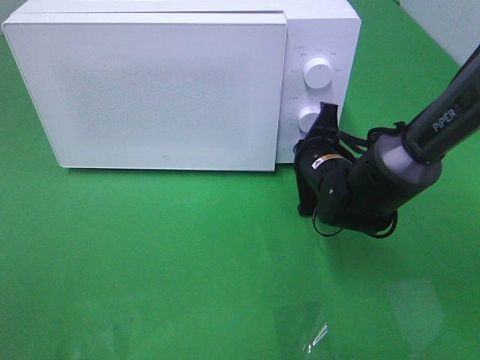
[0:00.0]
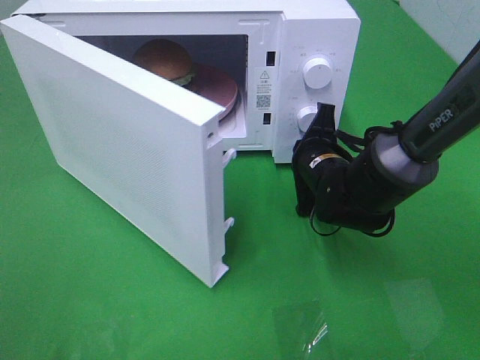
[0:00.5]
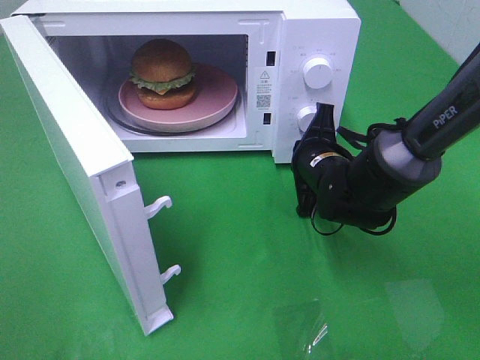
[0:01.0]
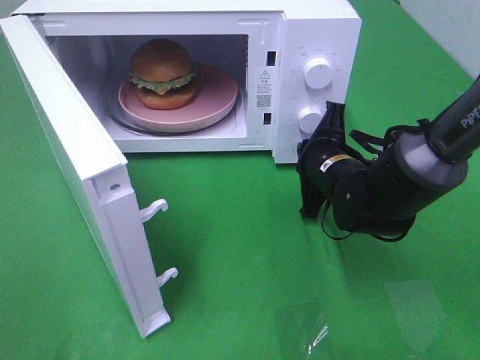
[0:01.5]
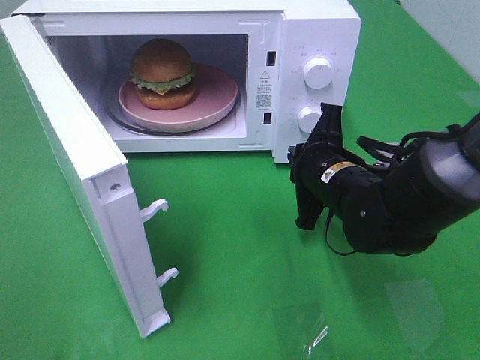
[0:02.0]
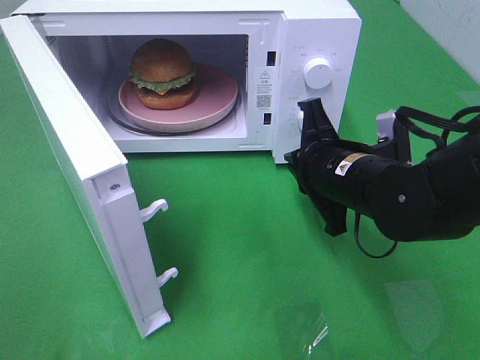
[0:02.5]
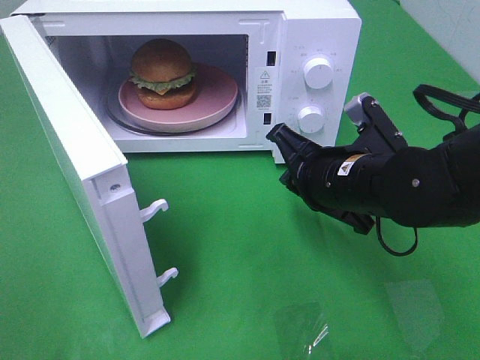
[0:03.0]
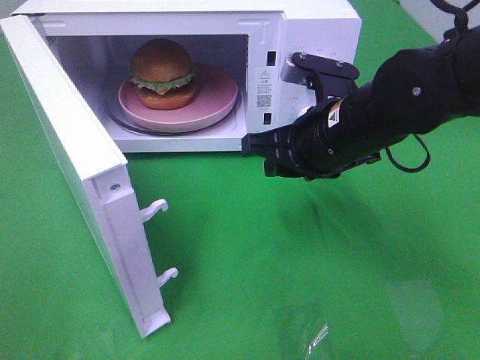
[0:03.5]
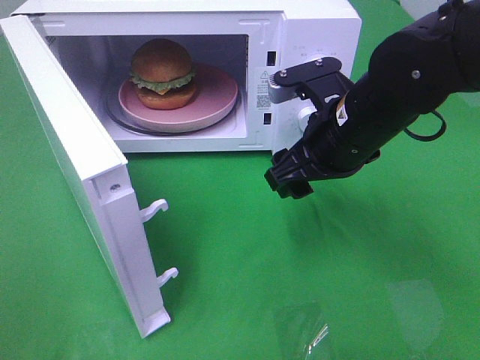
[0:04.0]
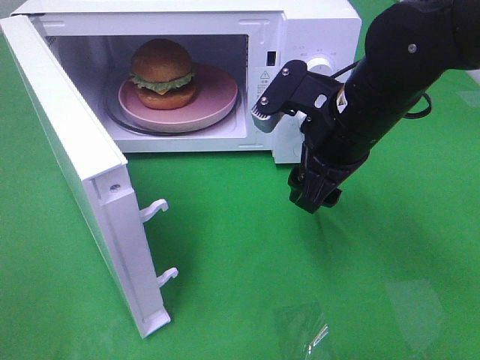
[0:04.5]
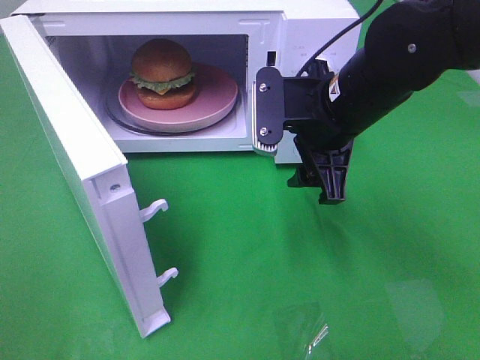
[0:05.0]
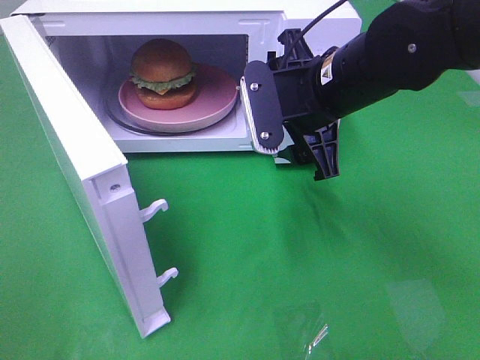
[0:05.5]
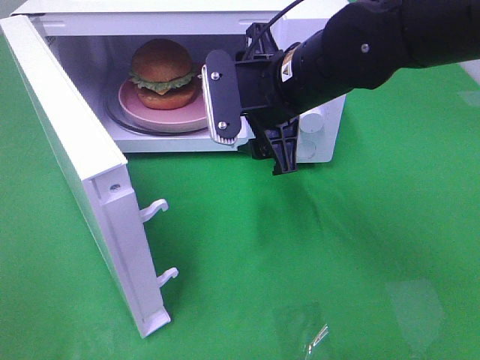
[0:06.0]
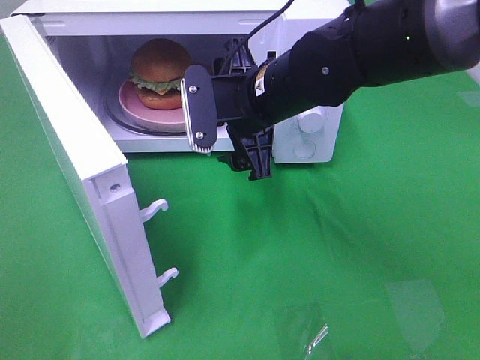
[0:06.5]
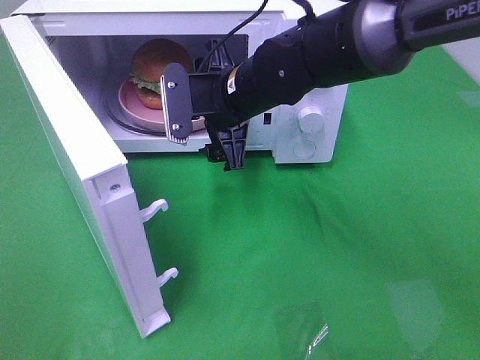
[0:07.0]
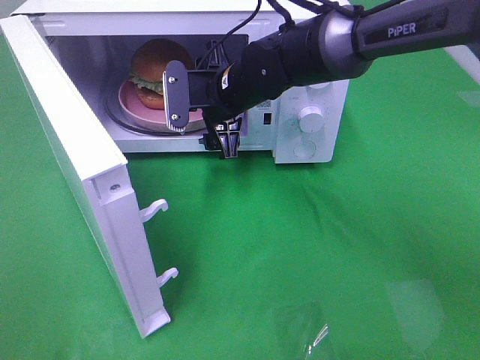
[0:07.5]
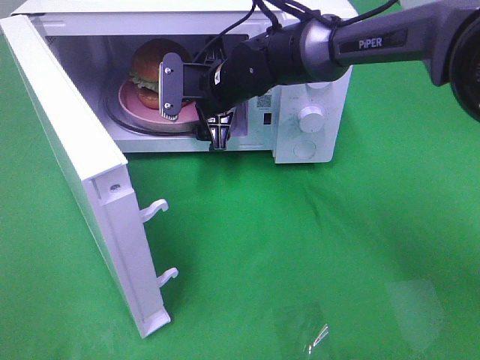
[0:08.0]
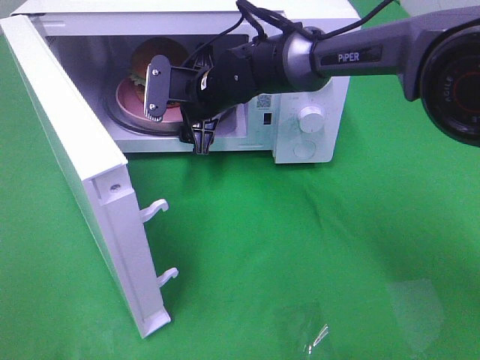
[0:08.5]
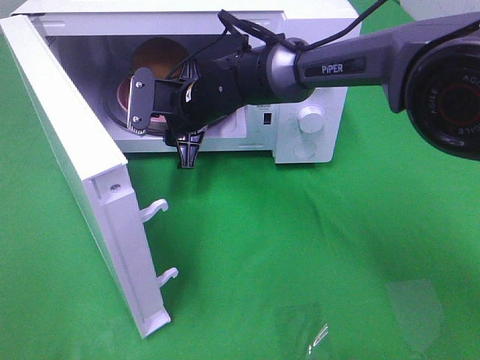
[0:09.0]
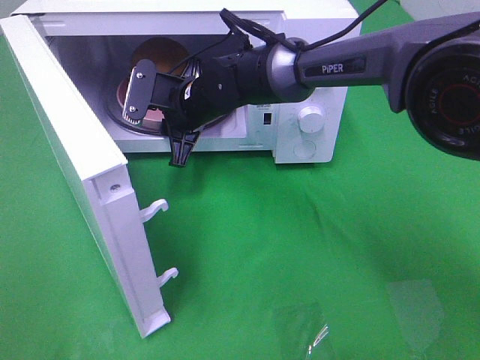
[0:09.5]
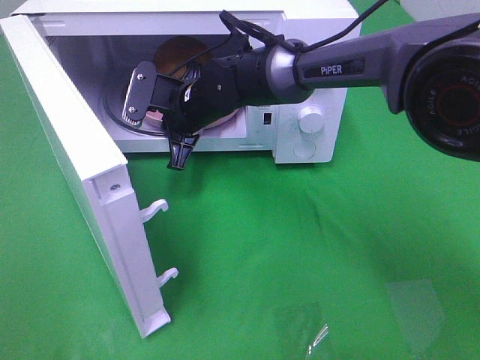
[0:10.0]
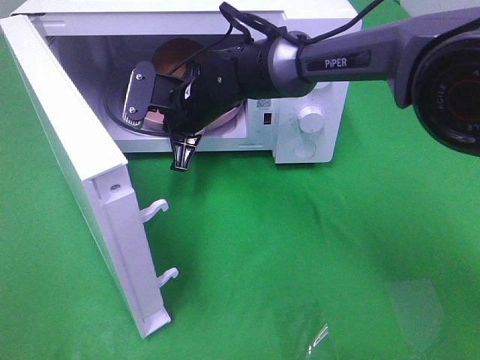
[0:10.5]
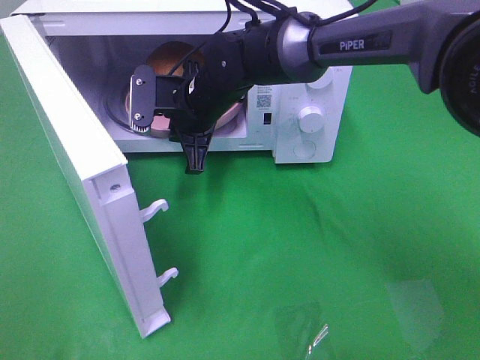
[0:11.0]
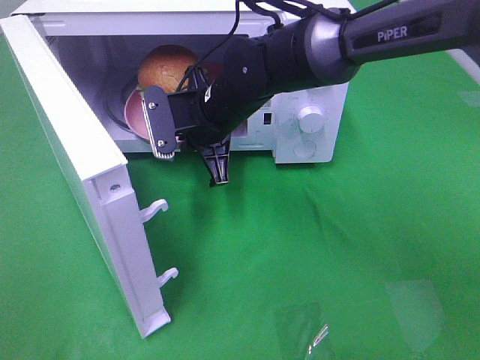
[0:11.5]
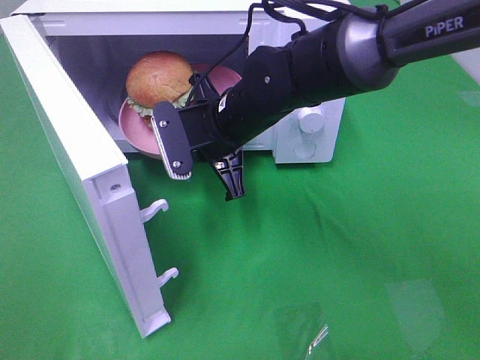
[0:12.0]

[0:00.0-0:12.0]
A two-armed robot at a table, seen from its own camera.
Task of the whole recording: Heat the burger.
Step, 0:02.0 to 0:09.5: Right hand: grab the plate with the hamburger.
0:00.0 to 0:02.0: The right gripper is displaced backward by approximately 5 cm.
0:02.0 to 0:04.0: The right gripper shifts about 10 cm upward, and opens.
0:04.0 to 0:06.0: The right gripper moves to the left, approximately 5 cm.
0:06.0 to 0:08.0: The right gripper is displaced forward, downward and to the left by roughly 15 cm.
0:08.0 to 0:10.0: The right gripper closes.
0:10.0 to 0:12.0: The right gripper goes some 5 cm backward.

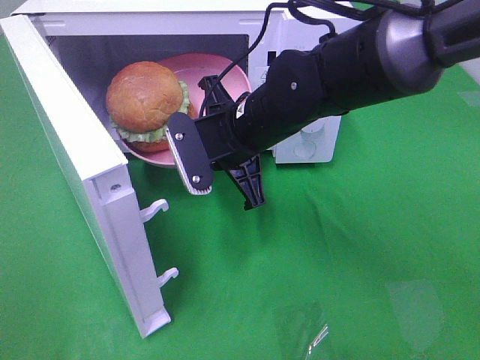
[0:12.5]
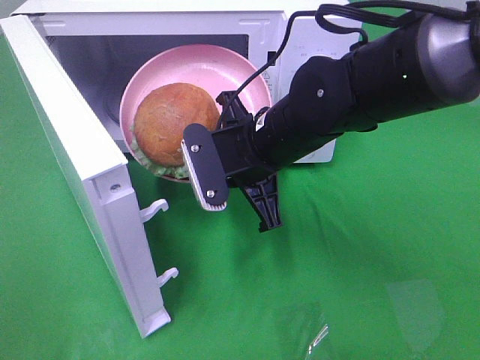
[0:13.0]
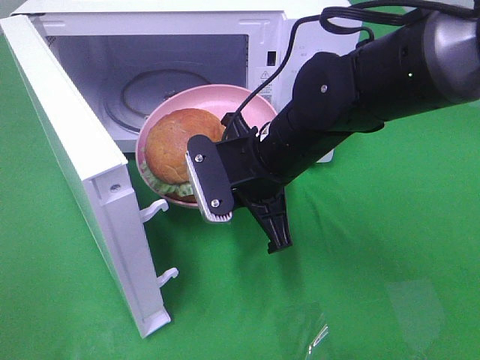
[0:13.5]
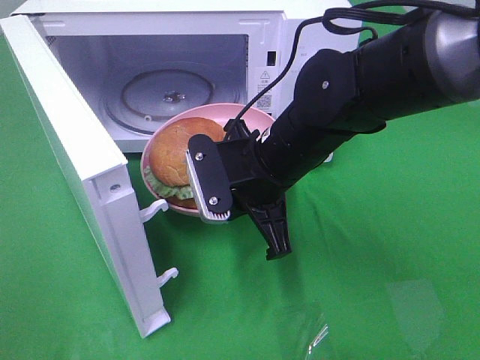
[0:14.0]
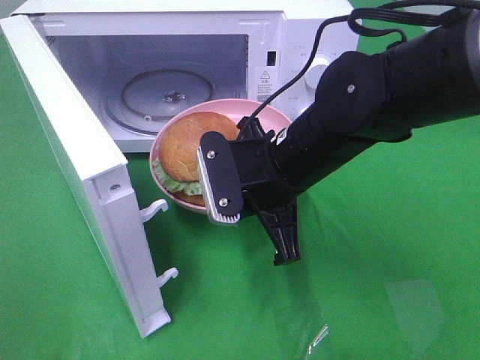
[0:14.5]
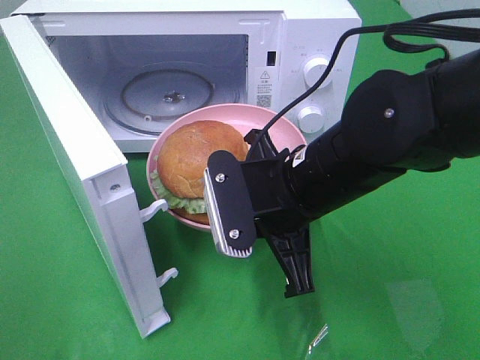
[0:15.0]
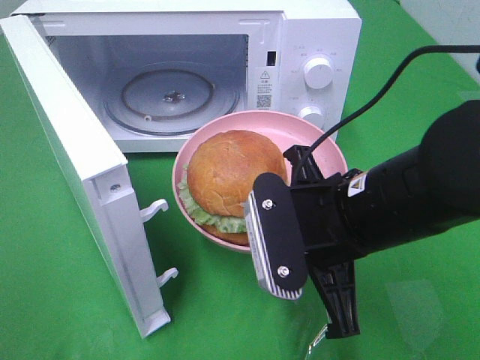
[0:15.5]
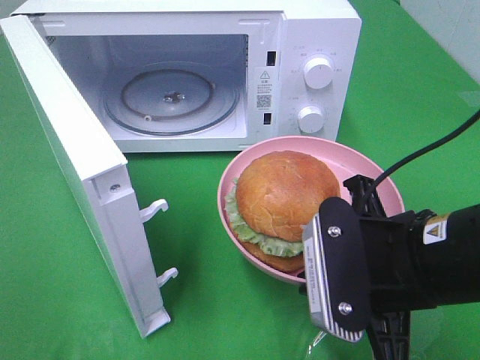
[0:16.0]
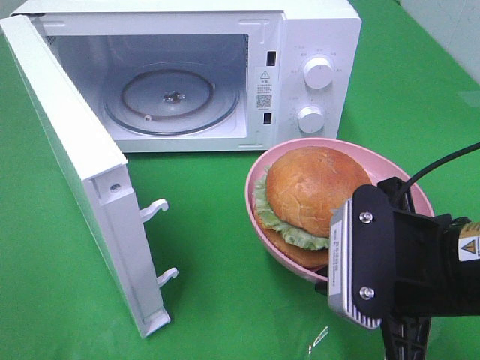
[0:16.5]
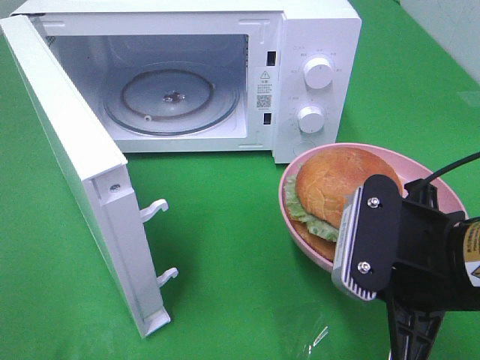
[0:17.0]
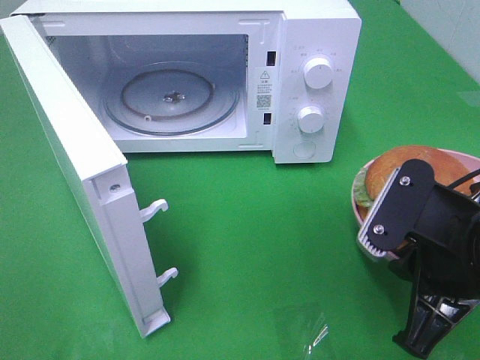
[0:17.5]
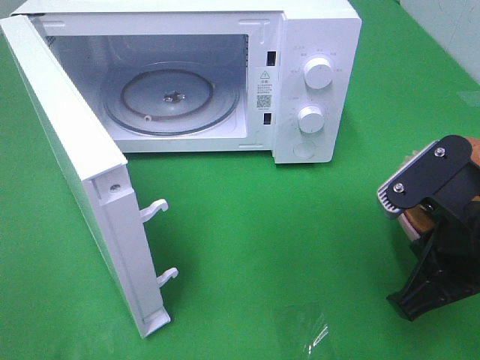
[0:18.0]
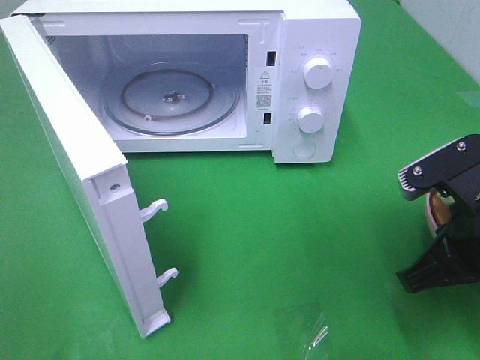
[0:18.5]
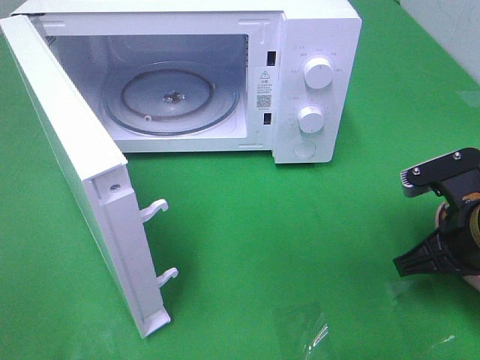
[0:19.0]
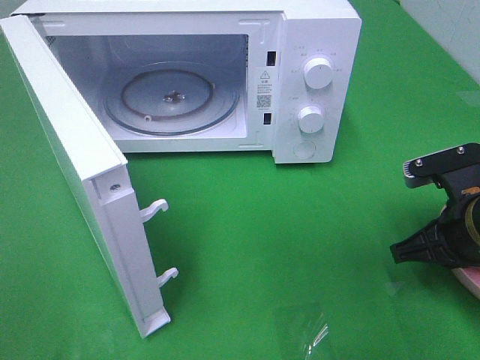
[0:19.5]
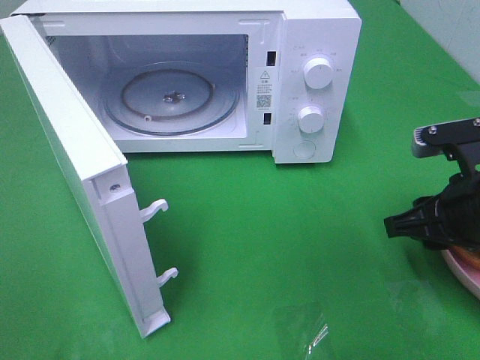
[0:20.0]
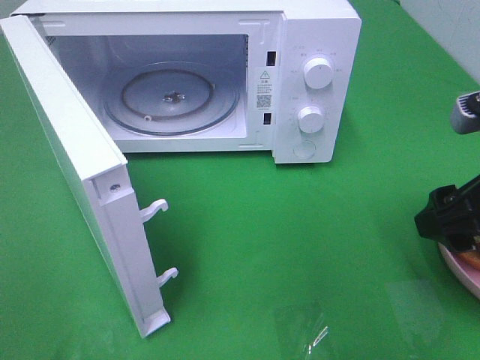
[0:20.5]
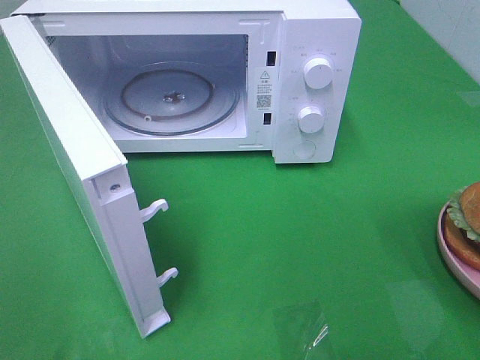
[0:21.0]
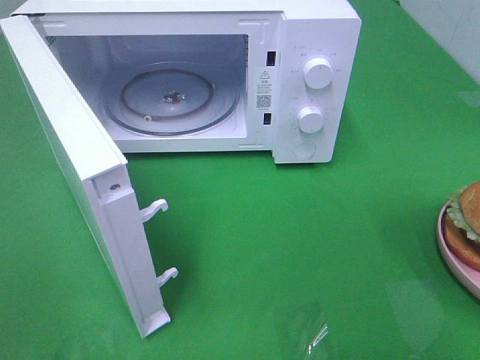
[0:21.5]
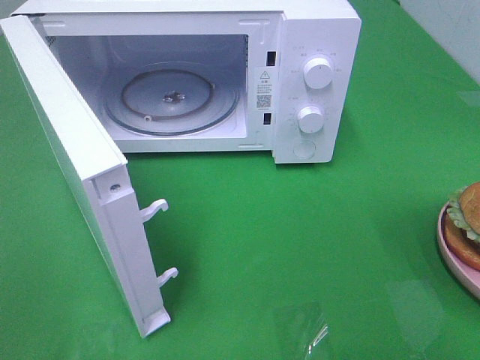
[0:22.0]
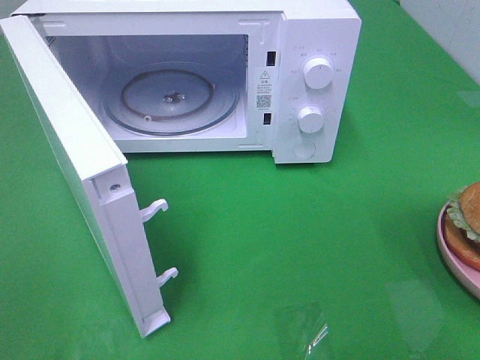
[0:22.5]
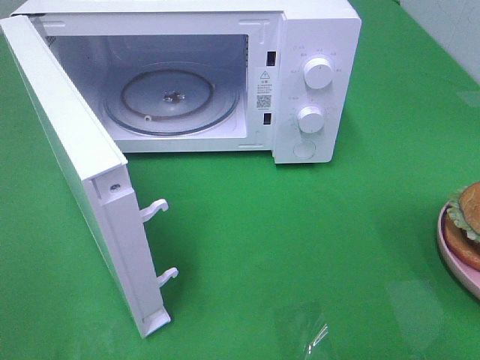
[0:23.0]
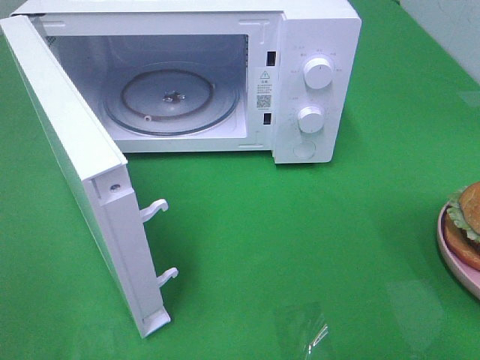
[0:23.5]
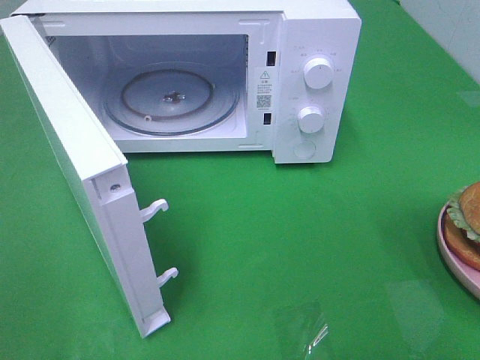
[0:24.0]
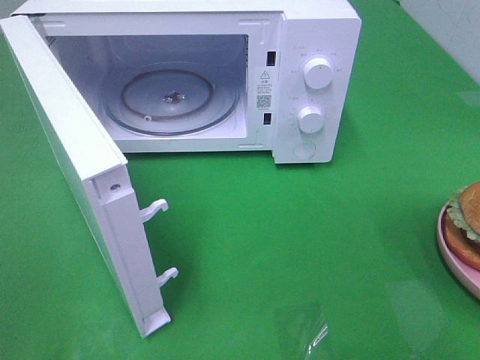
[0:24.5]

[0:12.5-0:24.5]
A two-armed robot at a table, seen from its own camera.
Task of the whole recording: Heat the burger.
Step, 0:12.5 to 0:20.0: Right hand: place the plate on the table.
0:12.5 to 0:14.5: The right gripper goes approximately 5 cm backward.
0:14.5 to 0:16.5: The right gripper shifts approximately 15 cm backward and to the right.
0:16.5 to 0:18.5: The right gripper heads to the right, covering about 5 cm.
0:18.5 to 0:20.5: The right gripper goes some 5 cm upward, and opens.
0:20.5 to 0:22.5: The right gripper shifts approximately 20 cm backward.

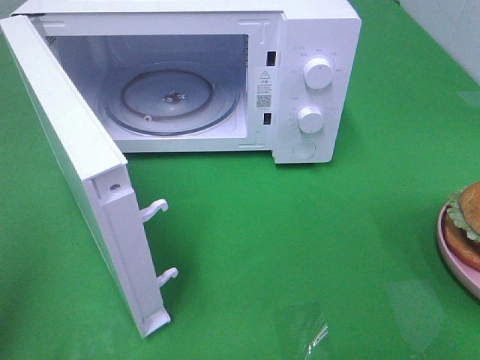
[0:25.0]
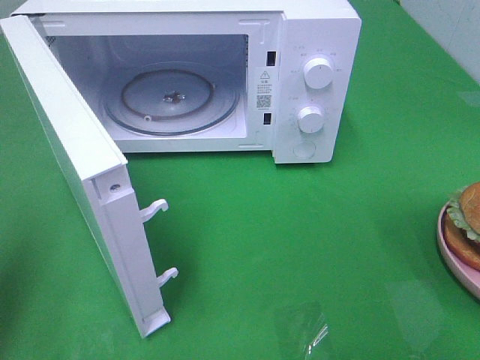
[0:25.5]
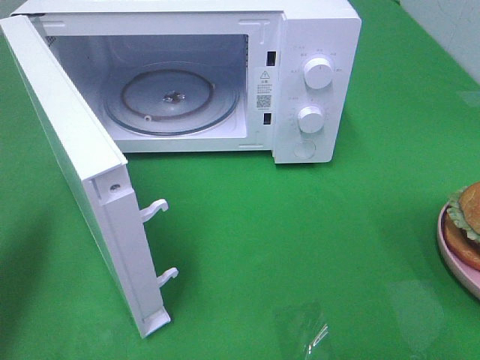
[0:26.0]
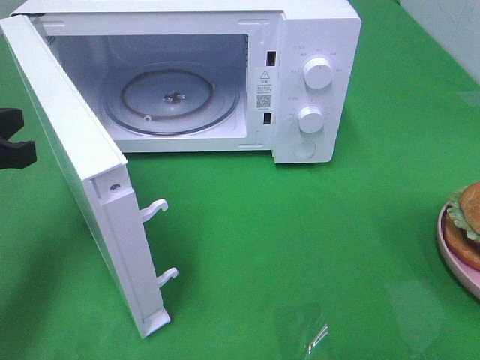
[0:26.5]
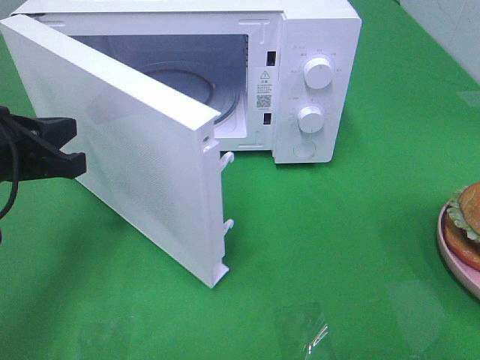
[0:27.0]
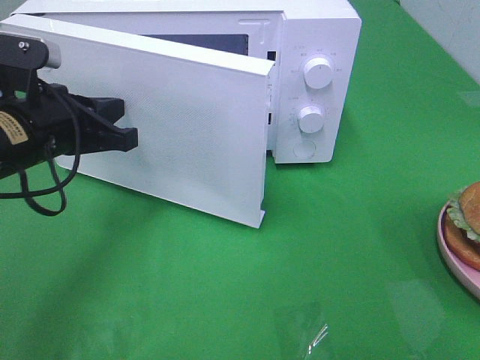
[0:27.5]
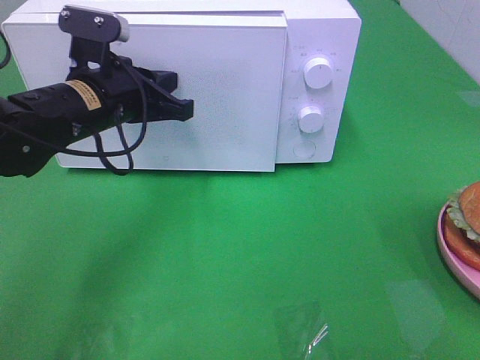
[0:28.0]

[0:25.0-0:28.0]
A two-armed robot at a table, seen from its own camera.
Task of the whole recording: Heat the burger.
0:25.0 to 0:26.5: The left gripper travels forward and downward by roughly 20 cm.
0:26.5 to 0:28.0: The left gripper moves to the right and forward, approximately 15 cm.
